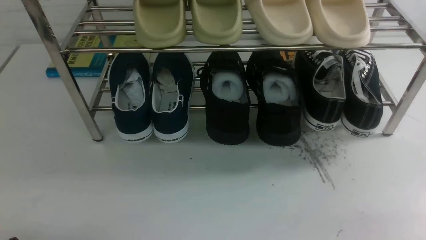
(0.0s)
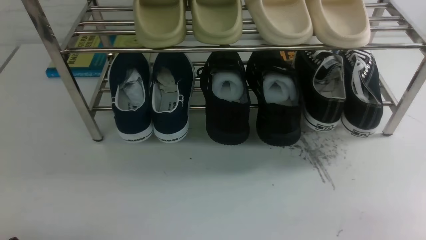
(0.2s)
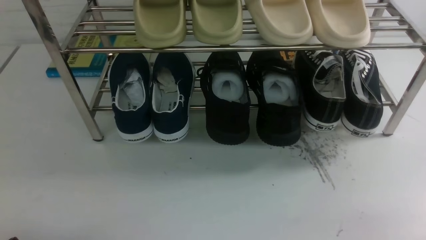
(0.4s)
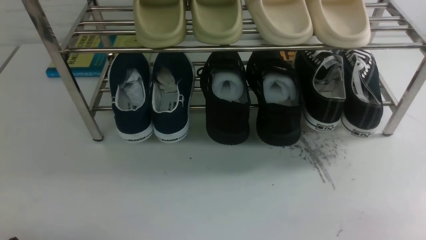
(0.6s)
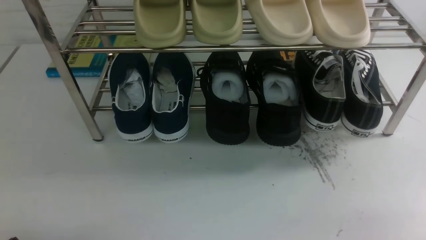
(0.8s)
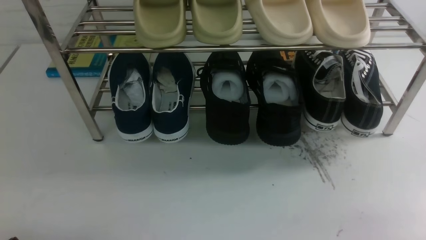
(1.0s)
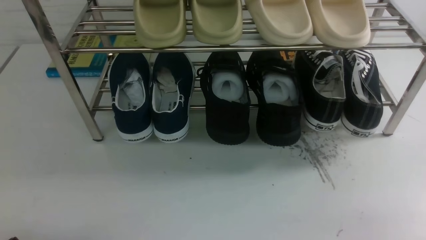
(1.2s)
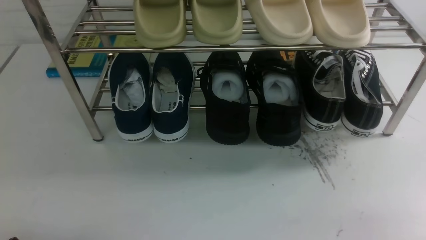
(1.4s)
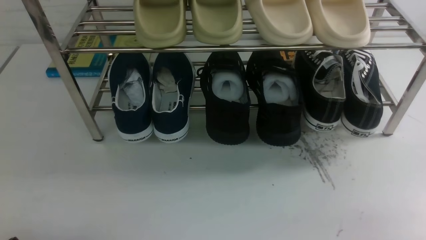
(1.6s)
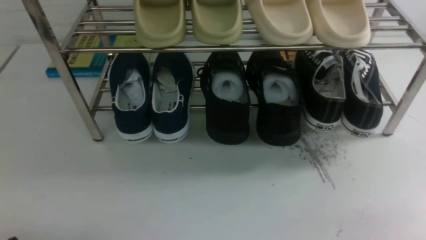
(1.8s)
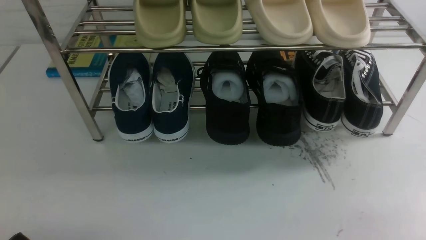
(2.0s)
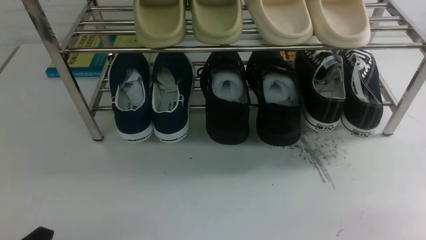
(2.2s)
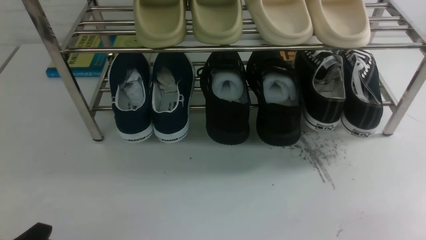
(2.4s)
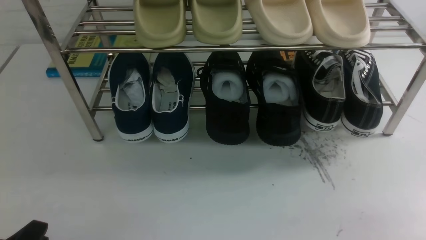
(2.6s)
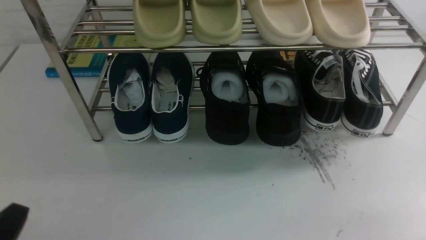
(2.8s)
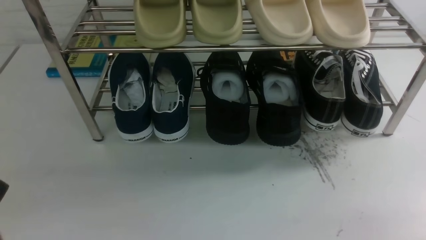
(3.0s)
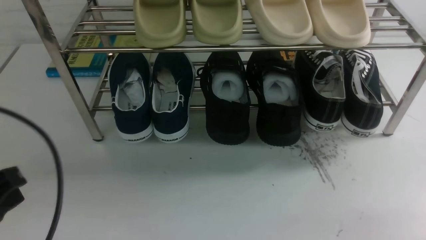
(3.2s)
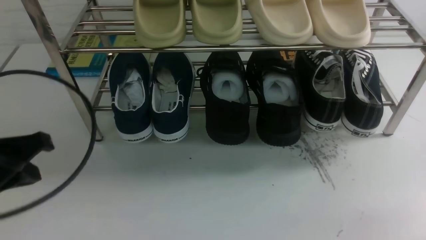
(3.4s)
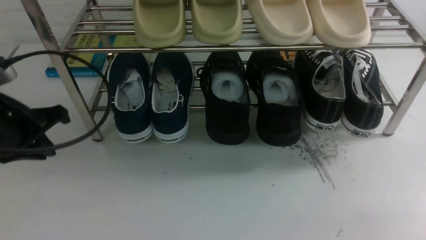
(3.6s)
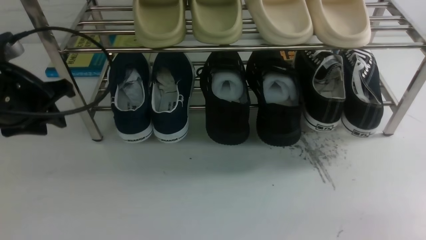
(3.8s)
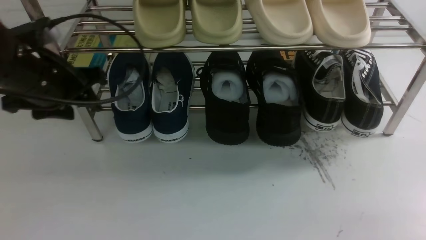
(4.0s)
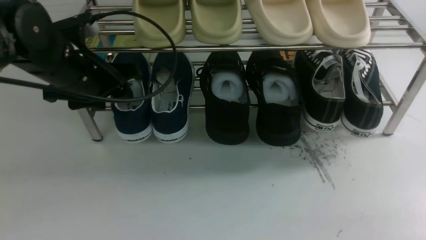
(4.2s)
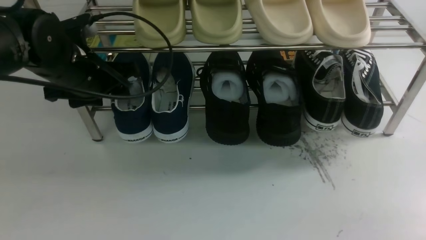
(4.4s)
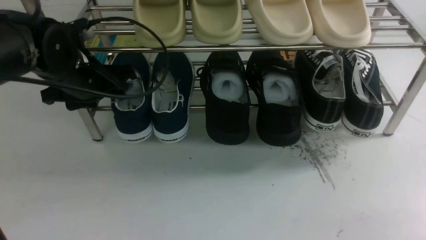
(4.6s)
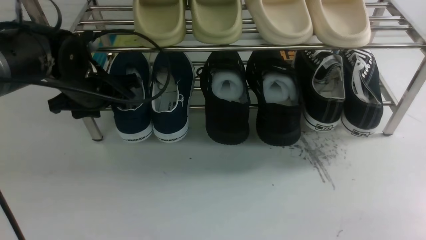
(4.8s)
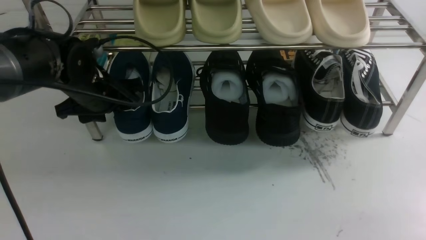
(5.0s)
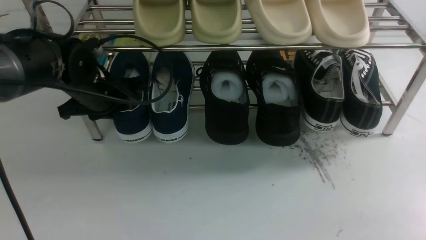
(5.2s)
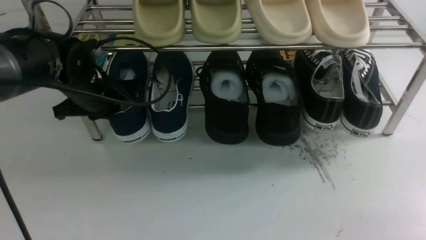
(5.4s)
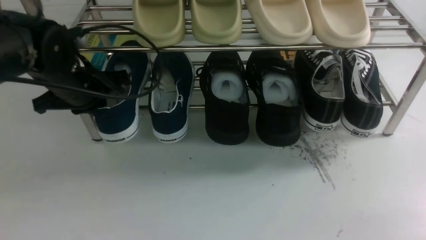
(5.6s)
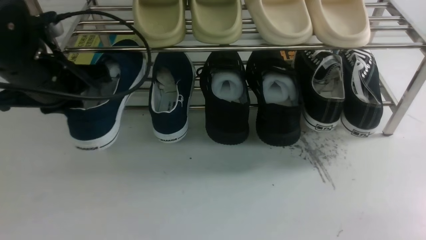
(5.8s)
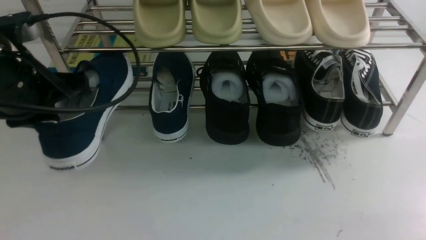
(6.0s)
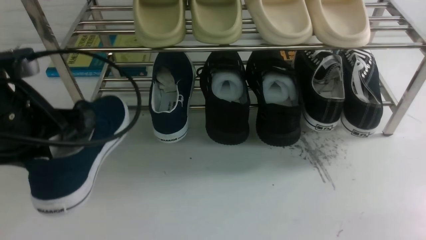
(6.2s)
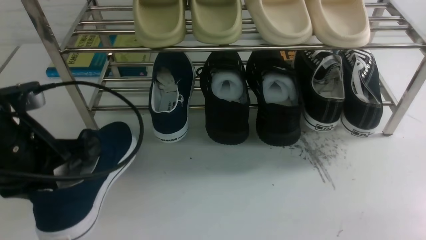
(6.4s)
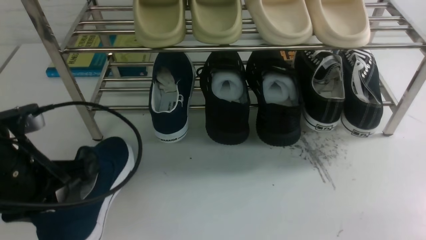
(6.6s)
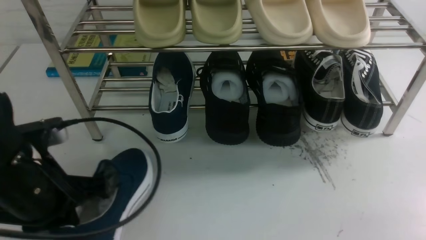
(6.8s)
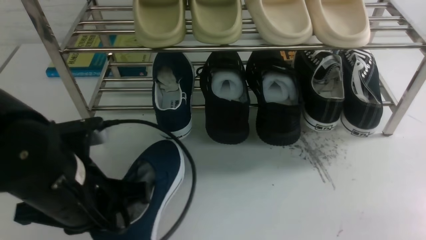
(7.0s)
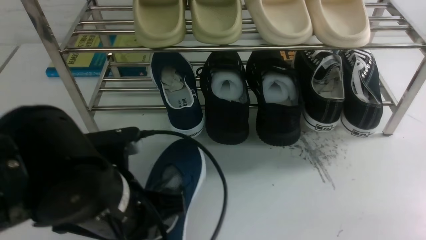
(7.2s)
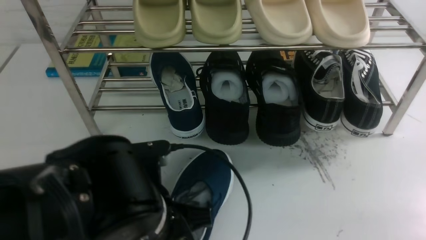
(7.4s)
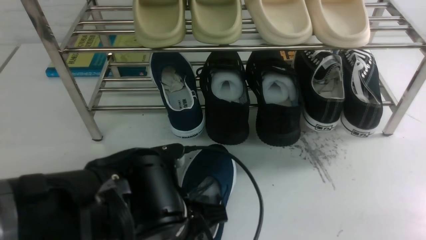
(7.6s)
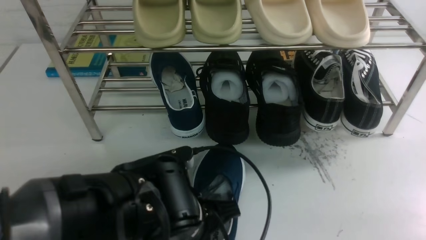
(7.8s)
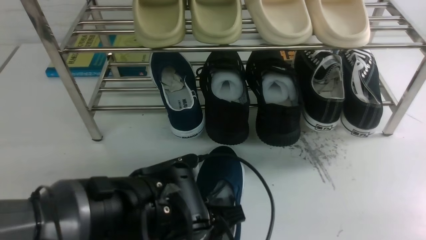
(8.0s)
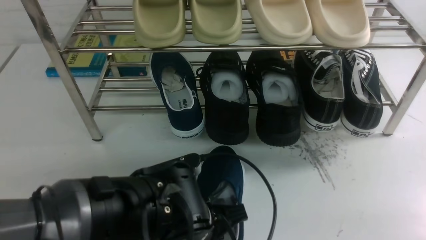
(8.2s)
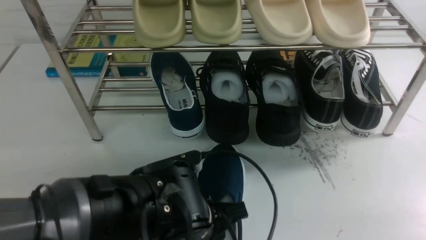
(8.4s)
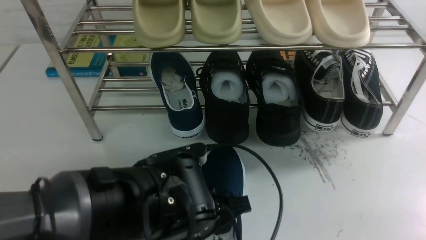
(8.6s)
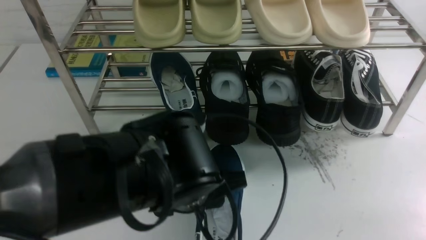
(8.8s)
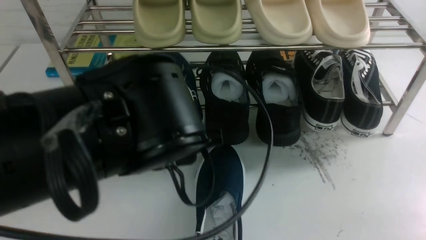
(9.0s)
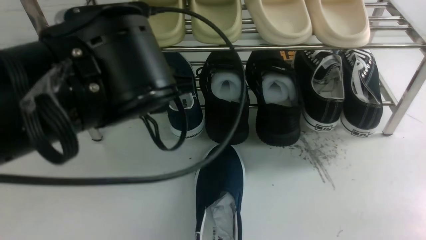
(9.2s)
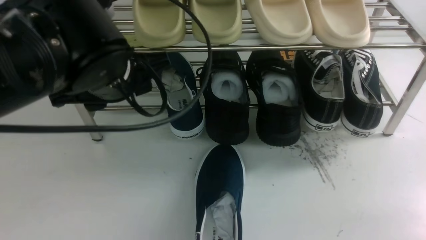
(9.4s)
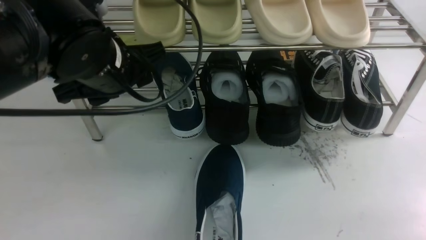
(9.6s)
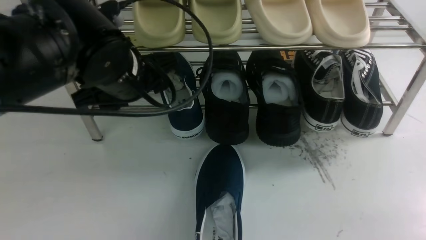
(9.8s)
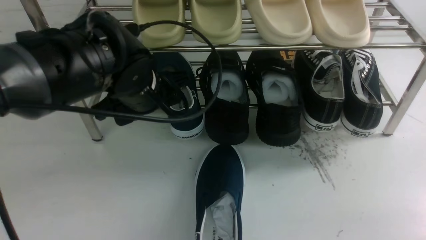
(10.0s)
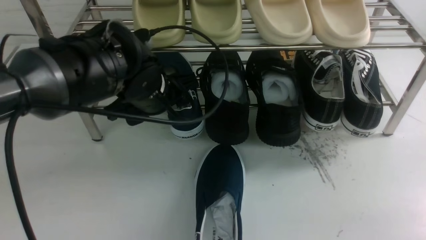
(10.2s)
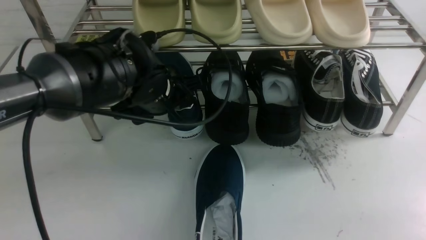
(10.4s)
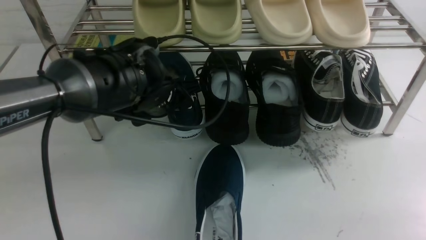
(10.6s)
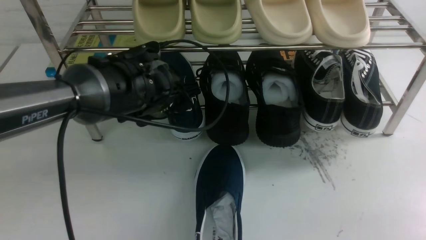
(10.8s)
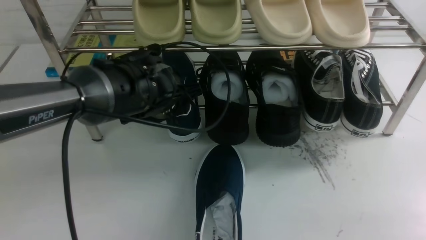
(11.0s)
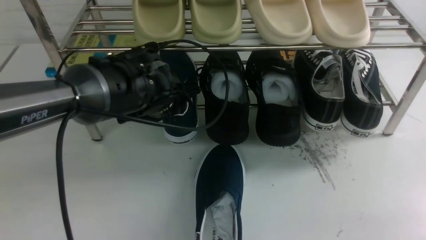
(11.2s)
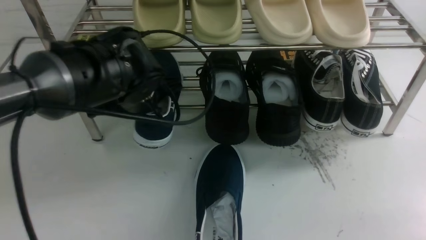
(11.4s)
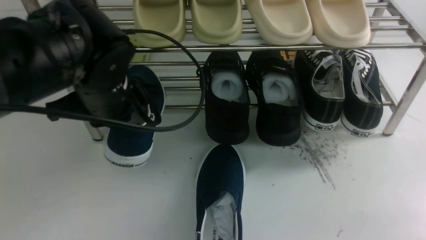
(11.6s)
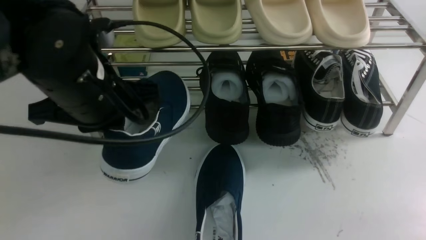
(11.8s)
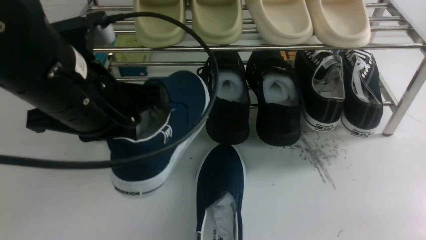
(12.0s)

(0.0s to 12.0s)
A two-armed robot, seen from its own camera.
Step, 0.0s - 5.6s: use the left arm to clamp a shoe on the left side of the shoe rack.
Step, 5.8s - 8.8s: Use your left arm to remove the clamped shoe from the shoe rack and put it down.
Step, 9.0s - 11.4s: use the left arm to clamp a shoe on the left side of the shoe rack.
0.0s - 1.6s: Neither gripper changes place.
3.0s - 4.4s: The left gripper travels forward by roughly 30 cm, and opens up.
4.4s - 6.0s: The left gripper is displaced backward by about 10 cm, and closes up.
6.0s - 7.6s: The left gripper shifts approximately 20 cm to the right, downward and backward.
7.6s - 9.0s: The left gripper moves upward, roughly 10 cm, and opens.
9.0s - 10.4s: The left gripper shifts some 15 cm forward and downward.
10.4s - 12.0s: The left gripper is displaced backward and upward by some 15 cm, and closes its fingers.

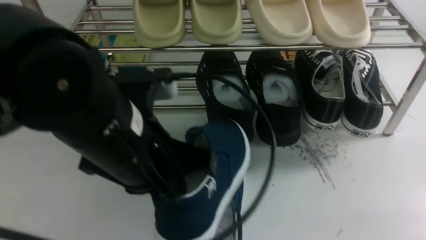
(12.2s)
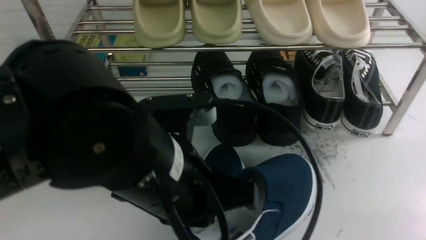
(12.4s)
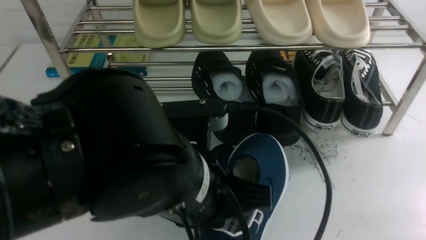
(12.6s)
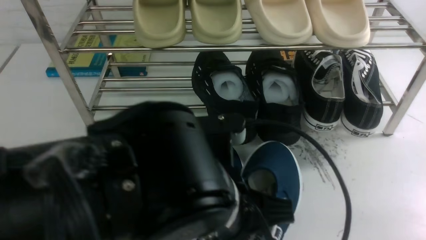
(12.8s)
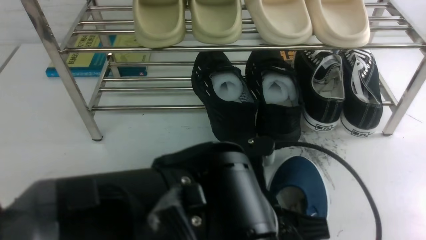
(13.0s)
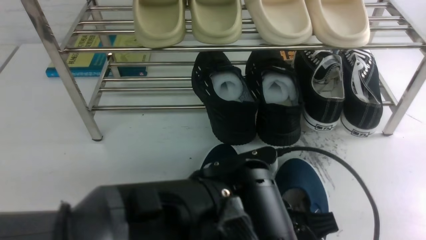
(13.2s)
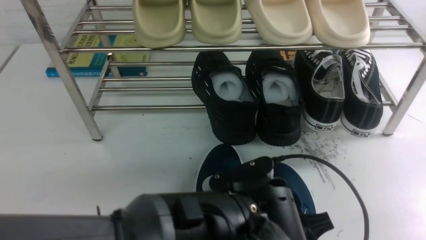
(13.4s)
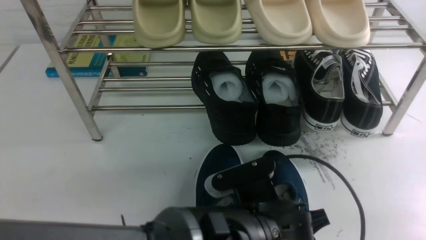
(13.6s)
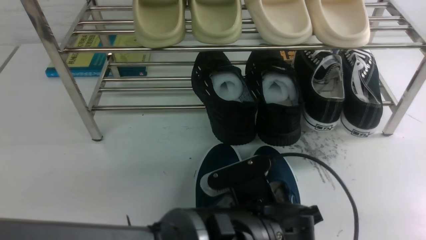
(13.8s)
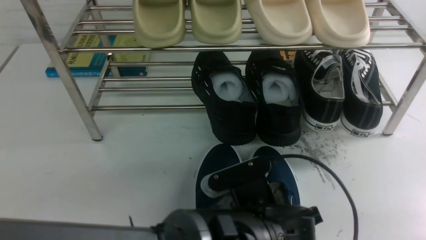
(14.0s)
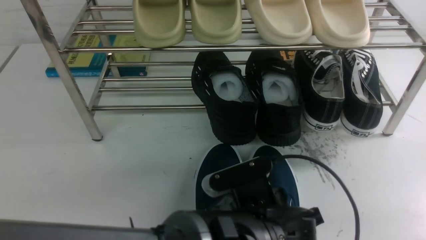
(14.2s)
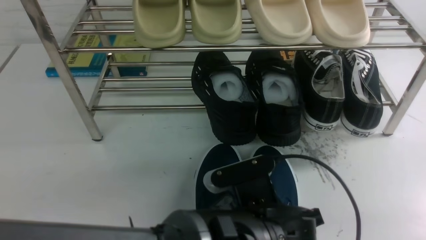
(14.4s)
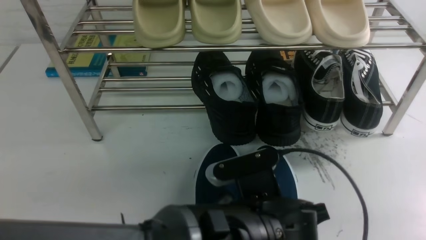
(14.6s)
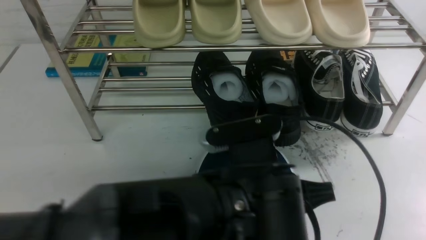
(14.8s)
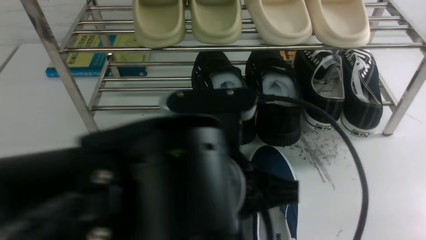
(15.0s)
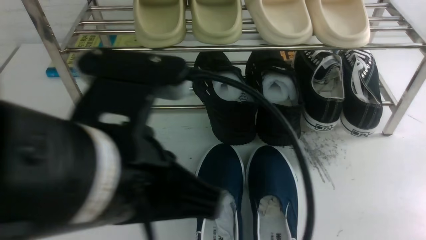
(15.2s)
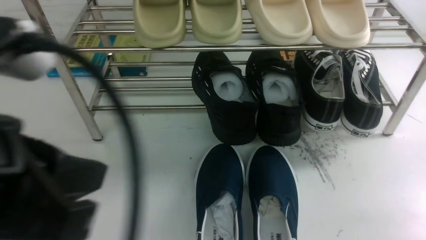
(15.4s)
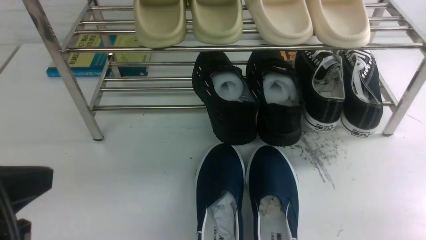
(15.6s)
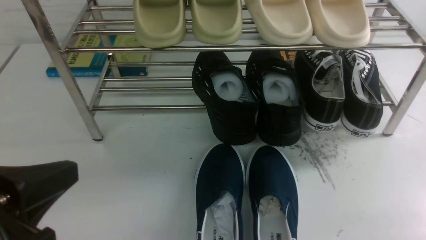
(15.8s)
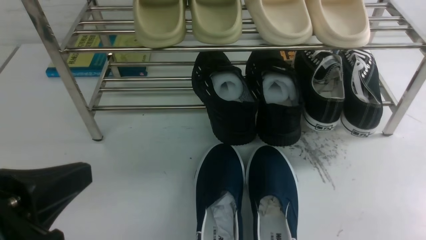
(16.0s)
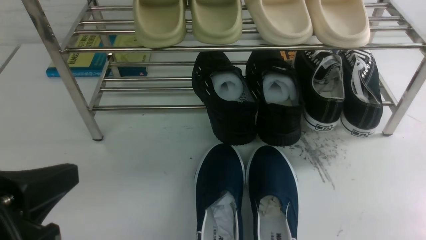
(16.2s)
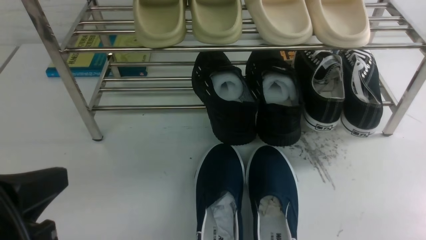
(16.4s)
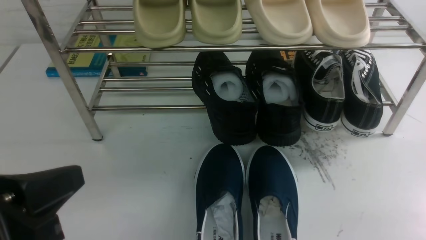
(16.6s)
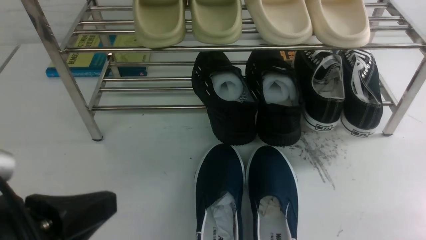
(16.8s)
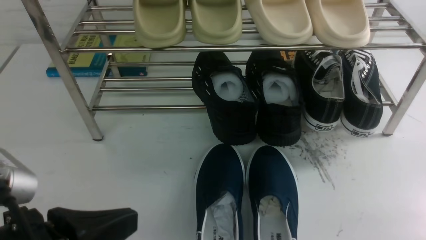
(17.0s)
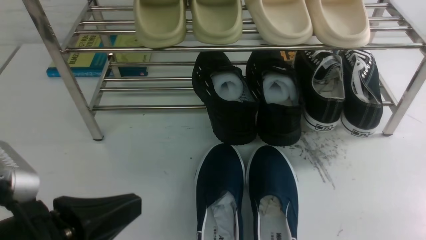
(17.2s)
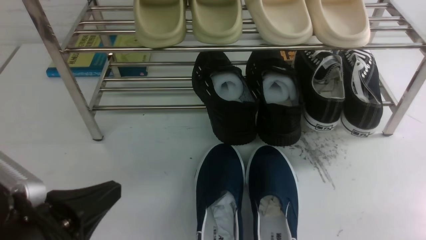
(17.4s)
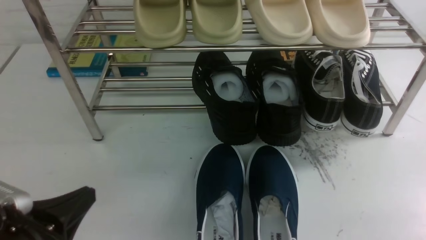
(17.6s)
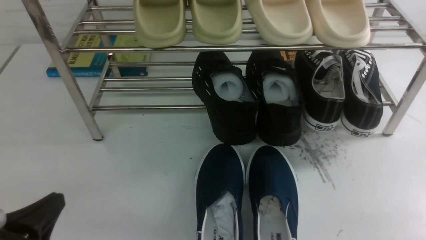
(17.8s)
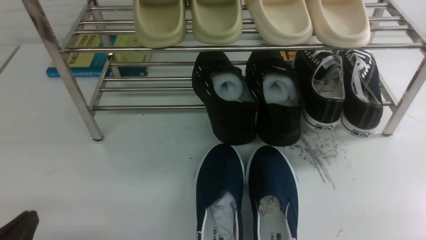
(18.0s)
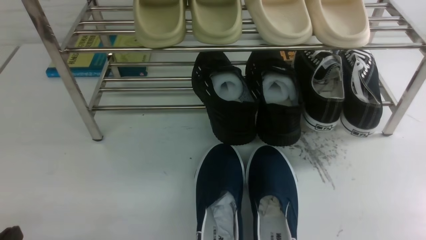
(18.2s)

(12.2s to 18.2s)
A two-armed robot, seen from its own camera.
Step, 12.2s - 14.6s: Use your left arm to remove the clamped shoe from the shoe rack and put it down.
12.2s - 13.8s: The left gripper heads to the right and downward, covering approximately 20 cm.
13.8s - 15.2s: The left gripper is displaced upward and to the left by roughly 25 cm, and opens, then closes once more.
15.2s - 16.6s: The left gripper travels to the left and downward by some 15 cm.
16.6s - 18.2s: The left gripper heads downward and to the left, covering approximately 15 cm.
